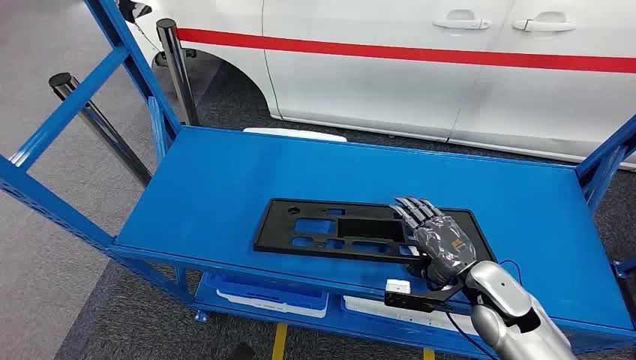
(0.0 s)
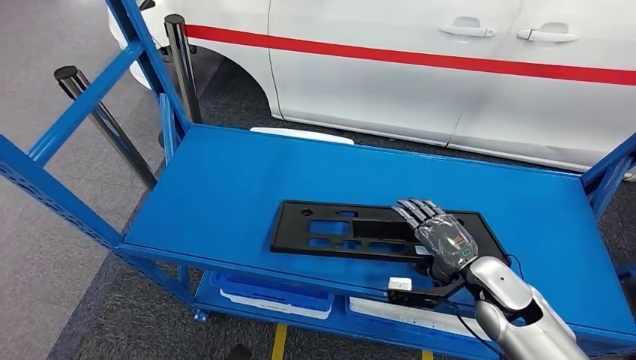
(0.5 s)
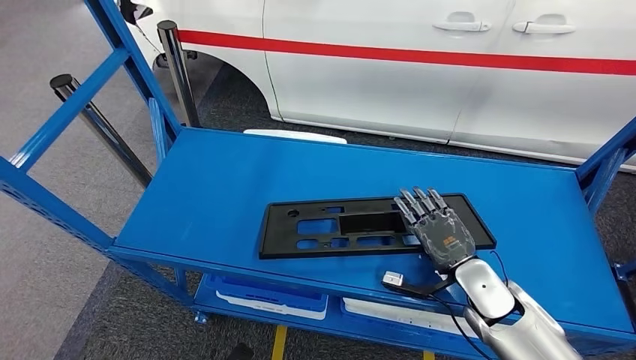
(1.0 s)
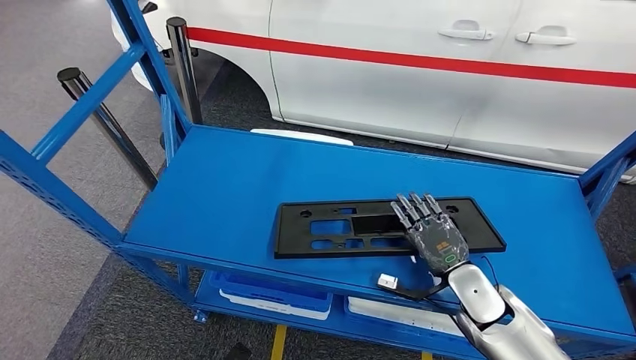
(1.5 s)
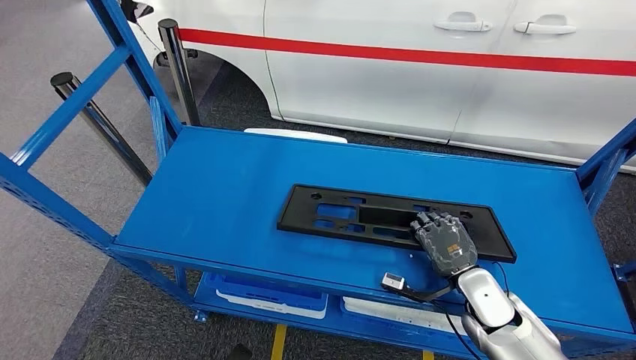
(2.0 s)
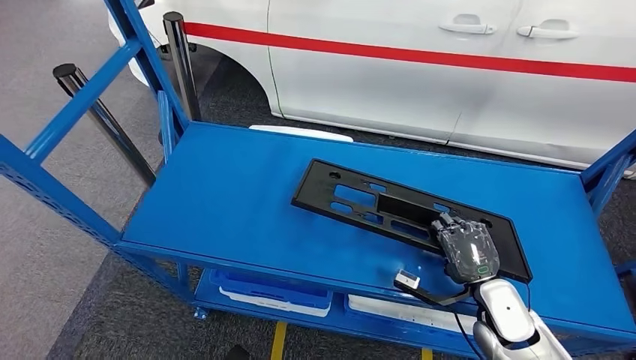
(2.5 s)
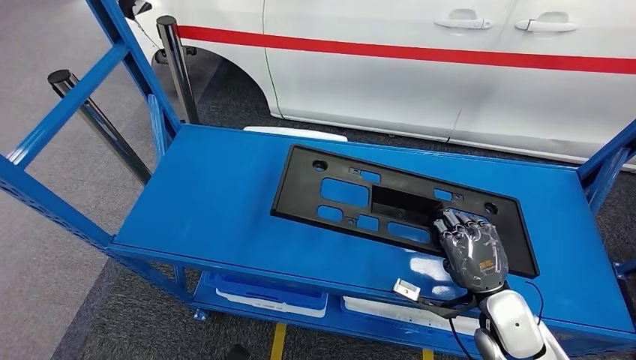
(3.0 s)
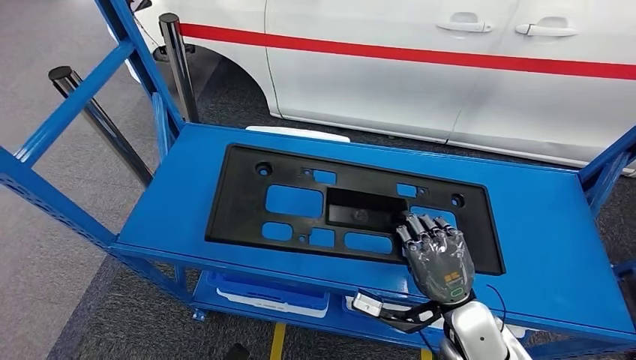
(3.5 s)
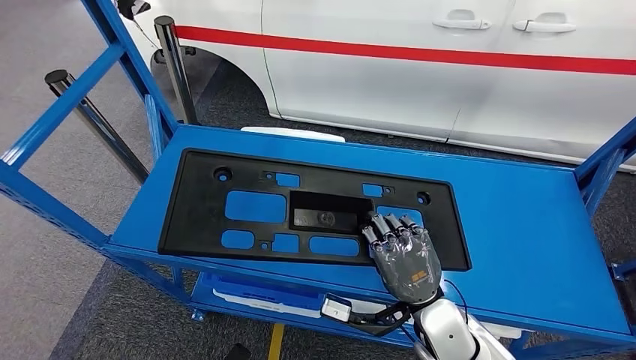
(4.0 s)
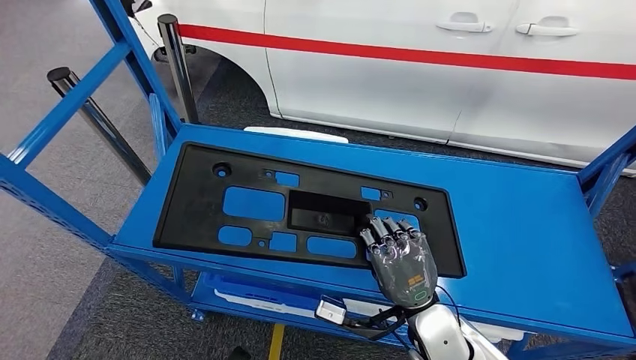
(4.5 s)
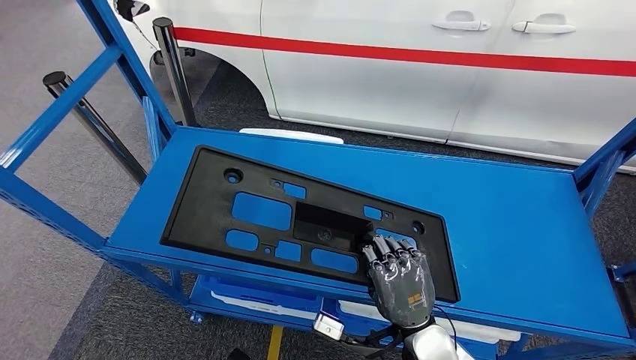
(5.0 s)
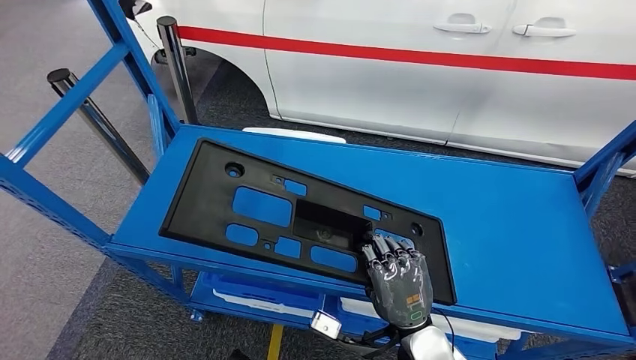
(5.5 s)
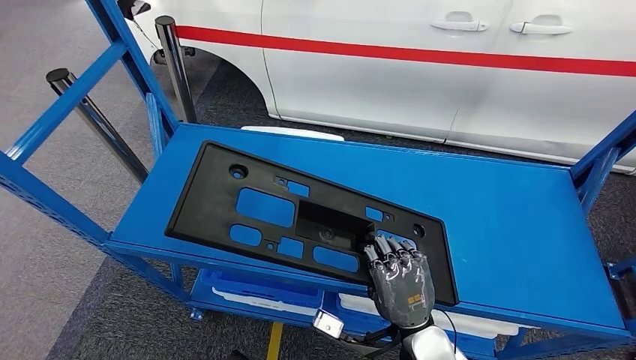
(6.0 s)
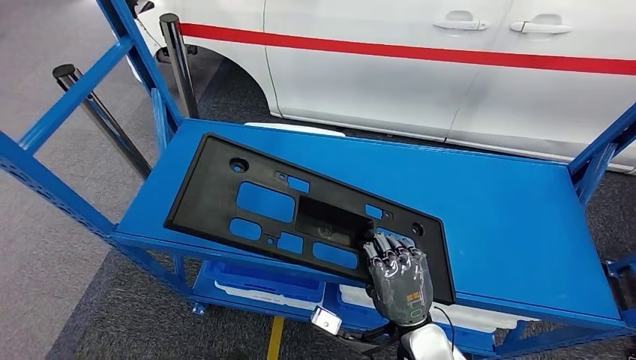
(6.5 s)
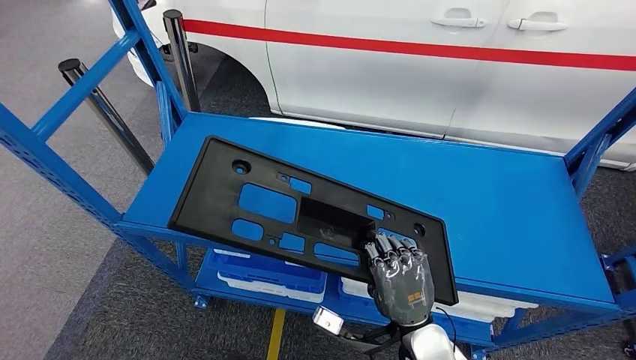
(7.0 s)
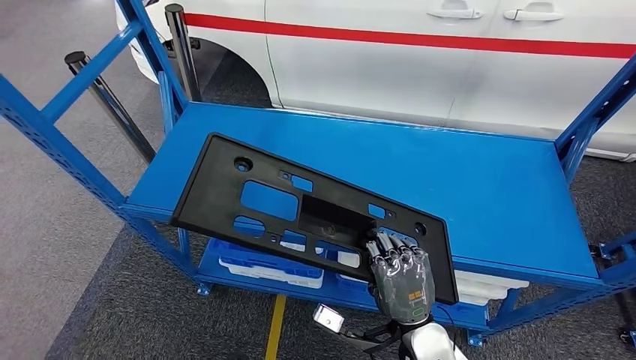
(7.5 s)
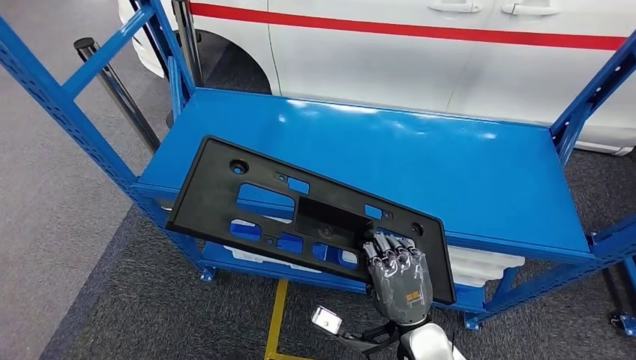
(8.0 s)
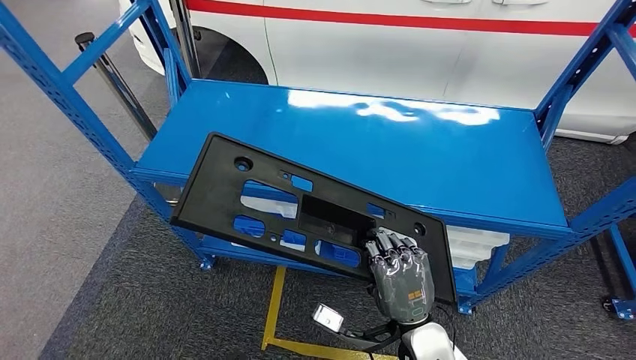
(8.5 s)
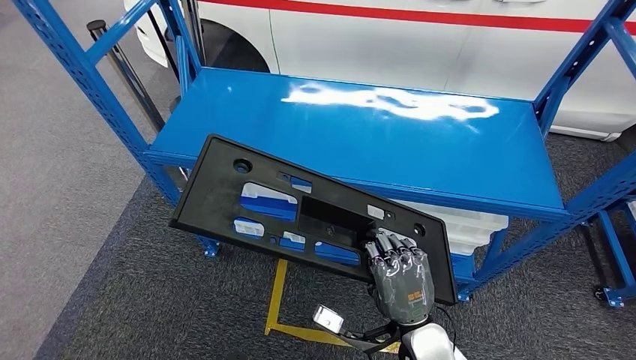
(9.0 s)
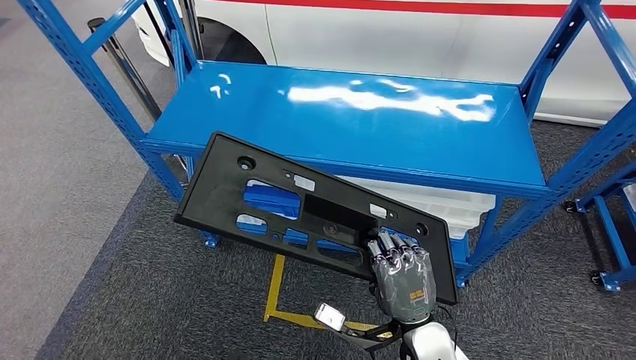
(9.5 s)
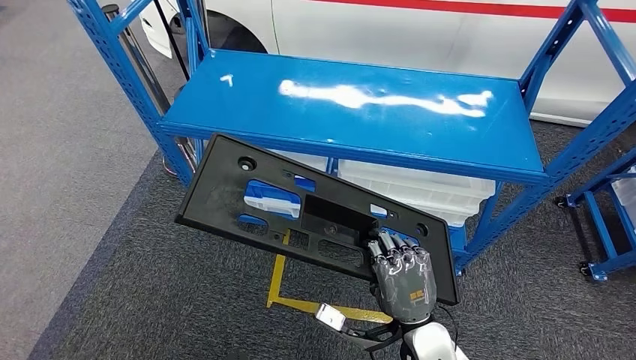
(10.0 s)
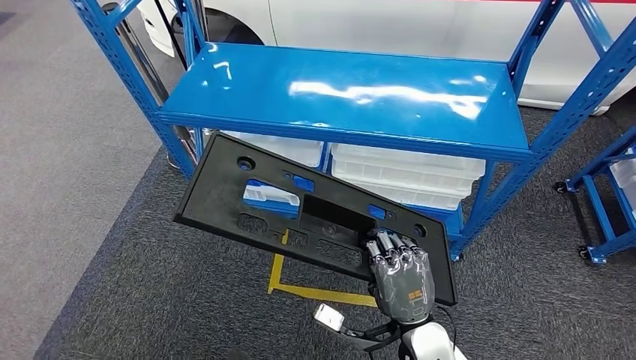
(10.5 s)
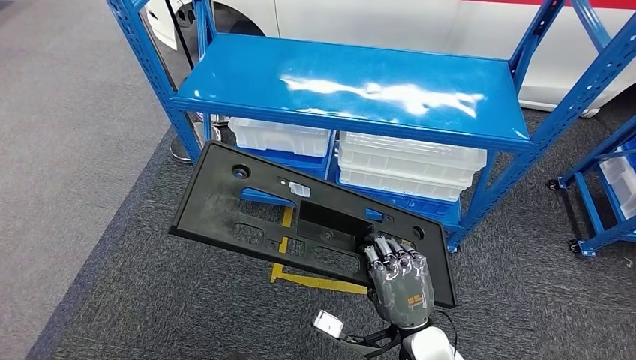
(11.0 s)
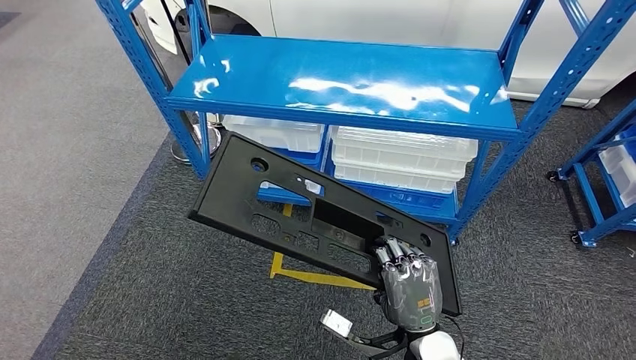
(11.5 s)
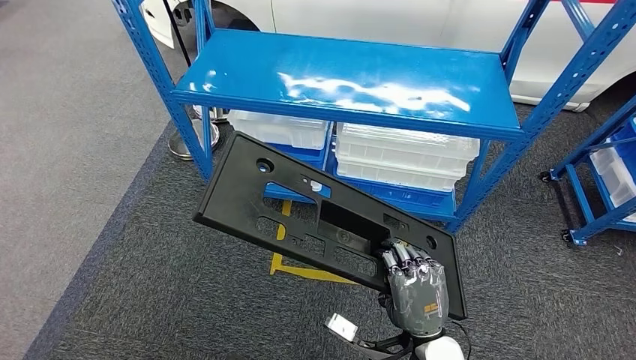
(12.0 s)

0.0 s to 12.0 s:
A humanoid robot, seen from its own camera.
Step, 0.0 to 7.0 s: Pick up the large material from the shelf.
4.0 to 6.0 s: There are only small adjustments of the hands.

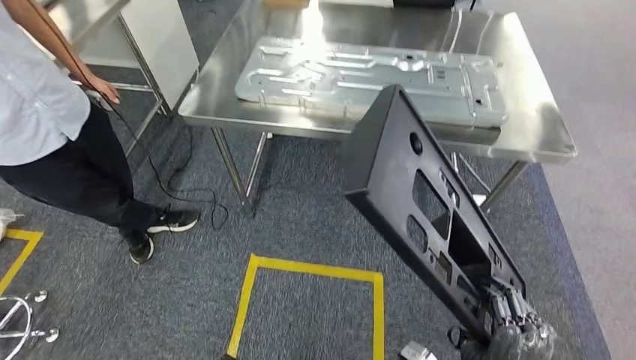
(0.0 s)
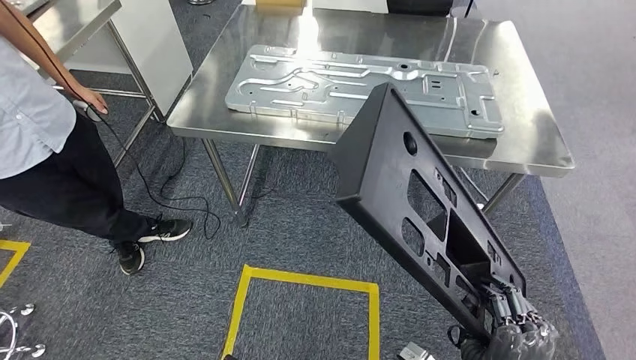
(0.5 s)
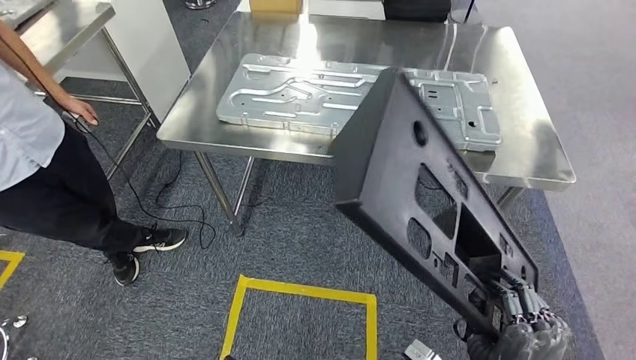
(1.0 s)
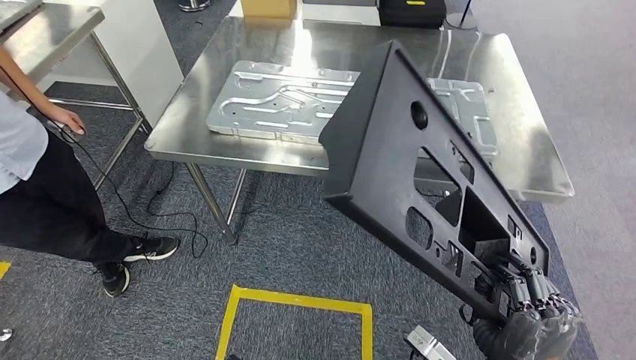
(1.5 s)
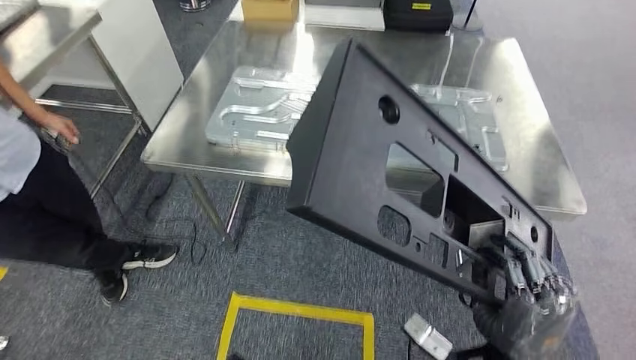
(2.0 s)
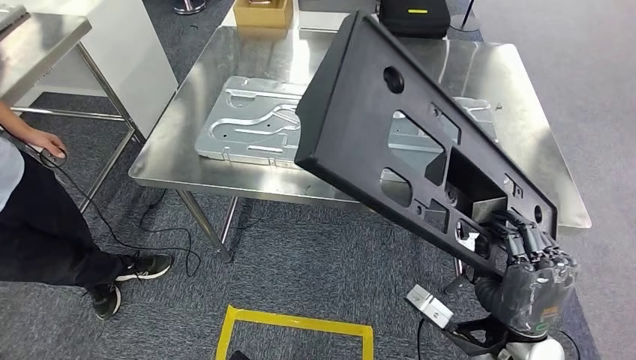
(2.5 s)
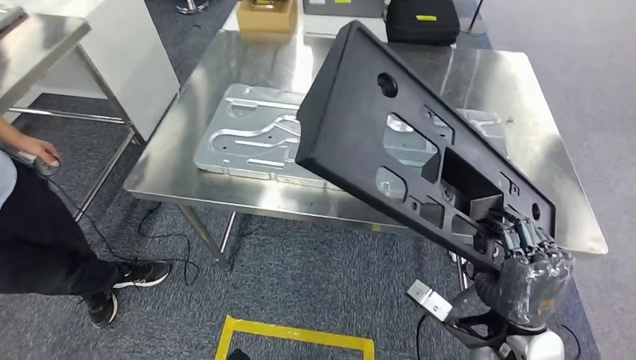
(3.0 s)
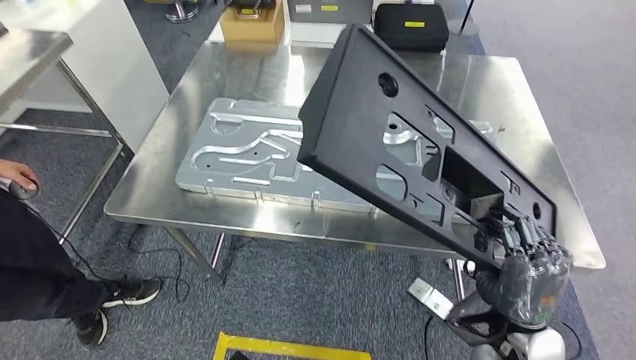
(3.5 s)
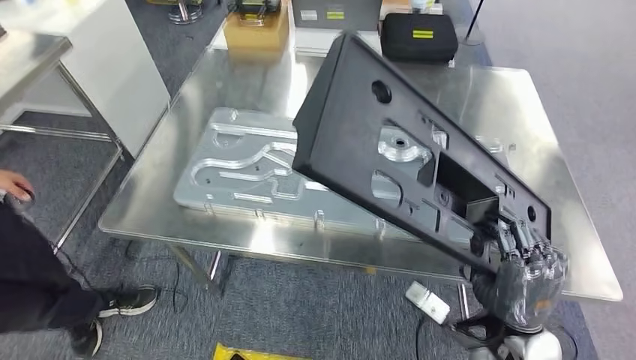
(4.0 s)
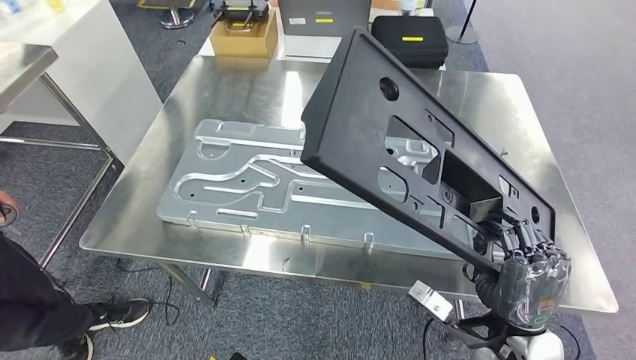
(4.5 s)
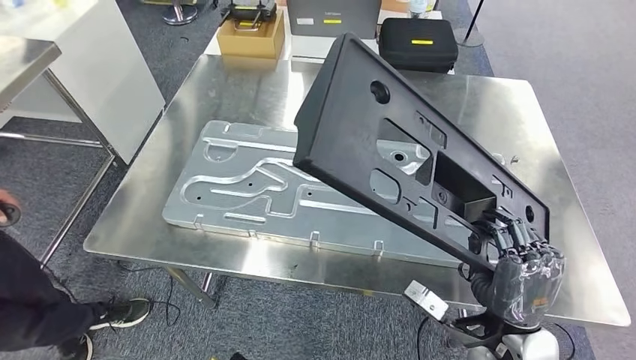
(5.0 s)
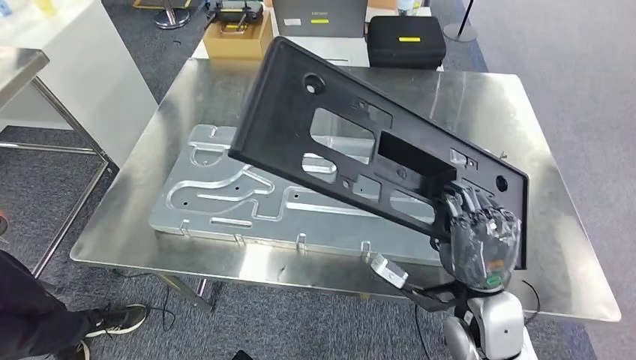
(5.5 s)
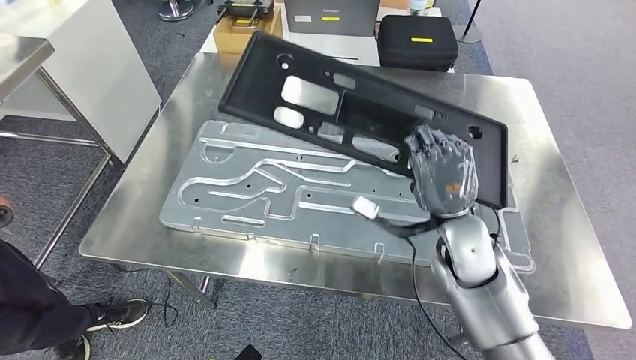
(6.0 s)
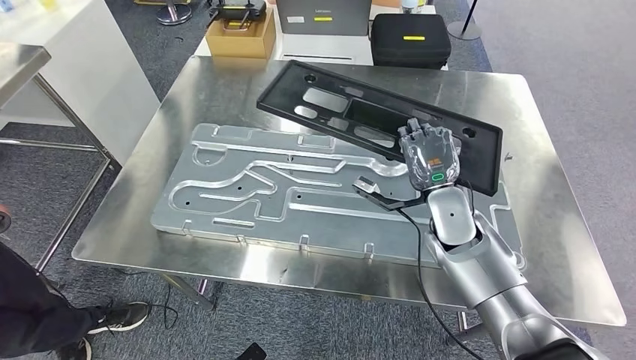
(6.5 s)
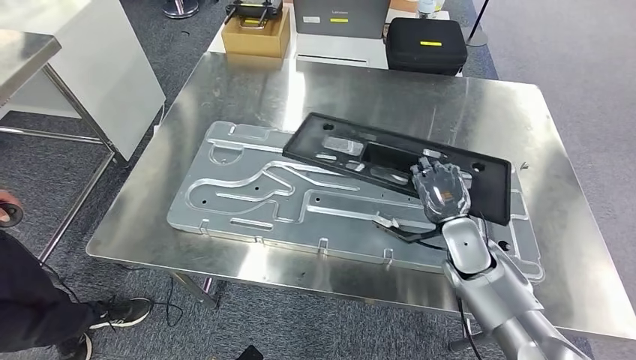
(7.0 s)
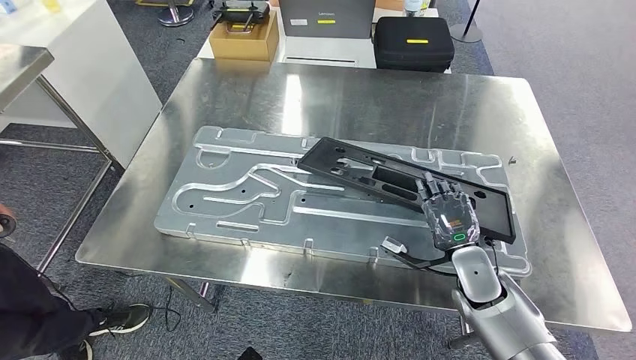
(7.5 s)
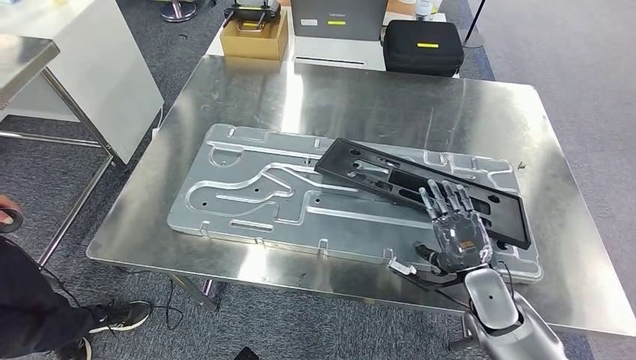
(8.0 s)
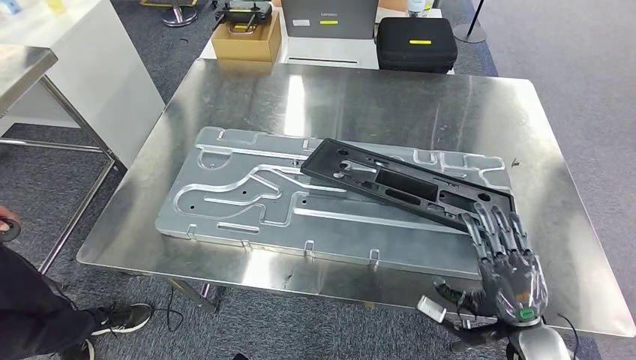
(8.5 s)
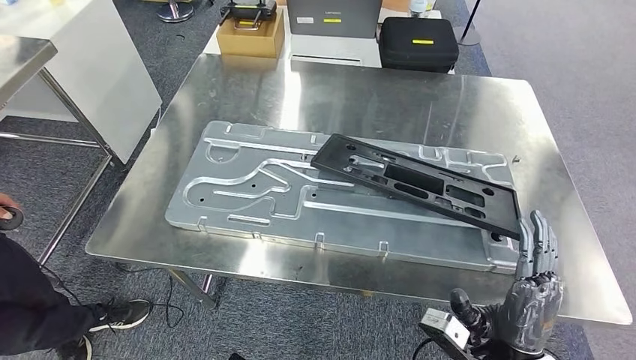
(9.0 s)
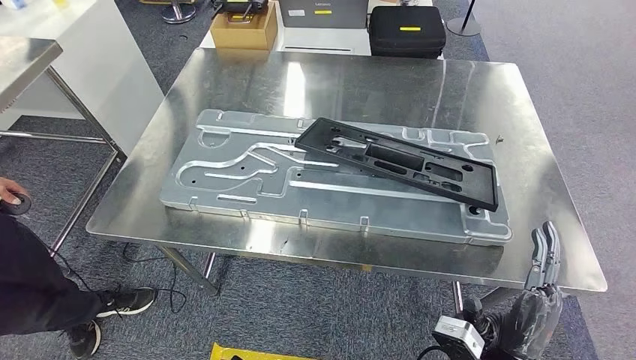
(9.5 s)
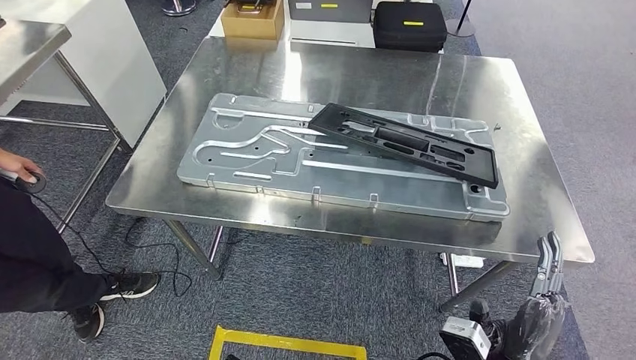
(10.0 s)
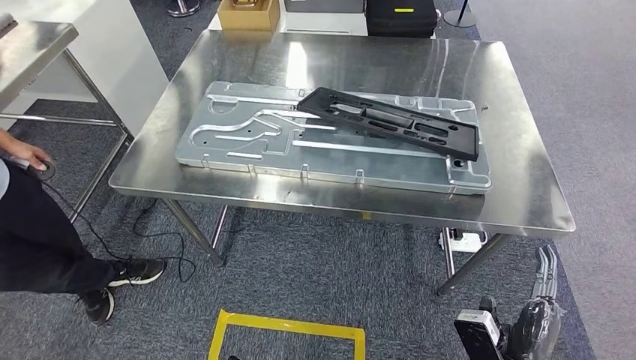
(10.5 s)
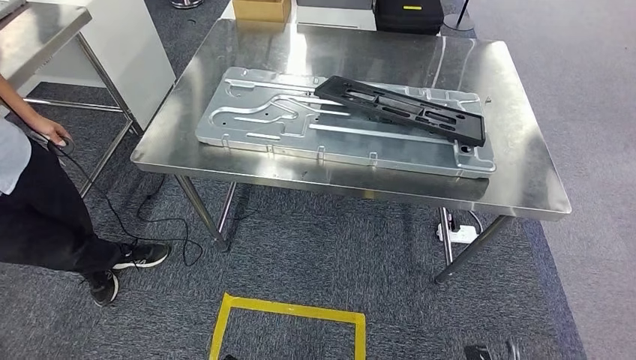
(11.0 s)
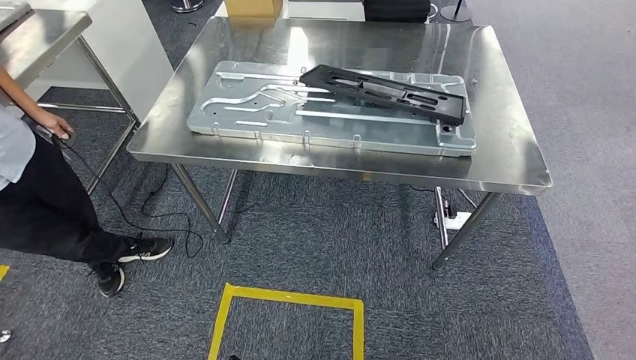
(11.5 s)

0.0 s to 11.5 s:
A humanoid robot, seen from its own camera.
Step, 5.0 to 8.5 s: Insert the large material into the corresponding slot on the workbench.
